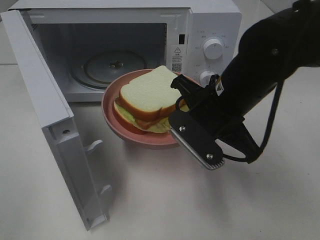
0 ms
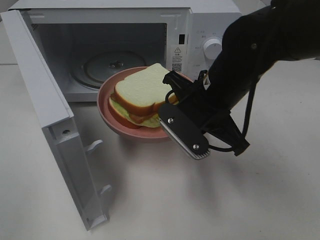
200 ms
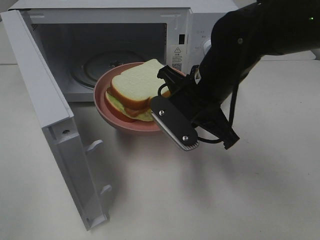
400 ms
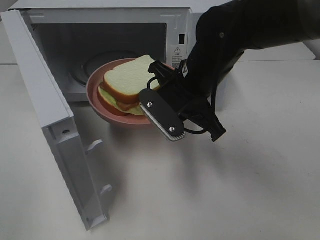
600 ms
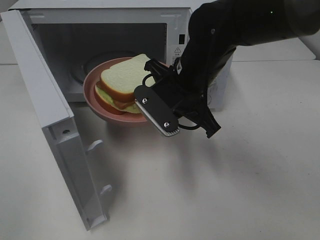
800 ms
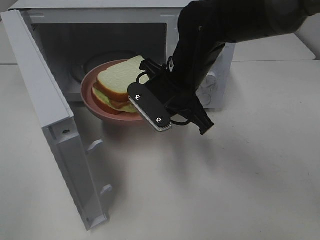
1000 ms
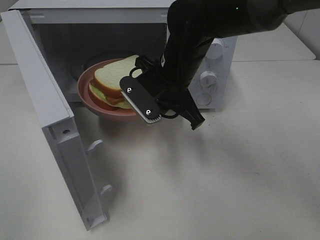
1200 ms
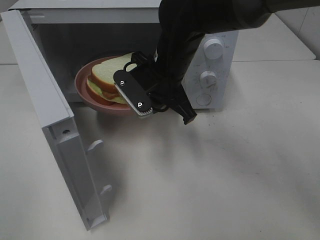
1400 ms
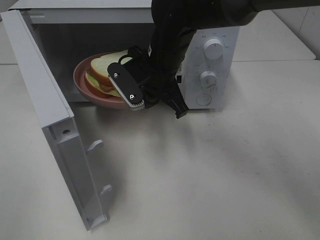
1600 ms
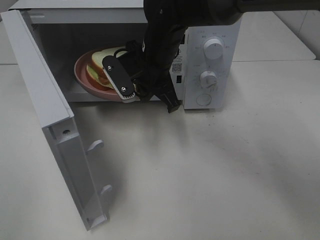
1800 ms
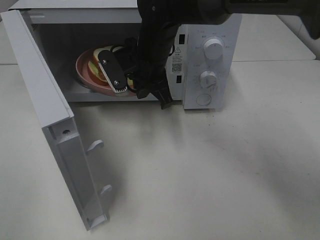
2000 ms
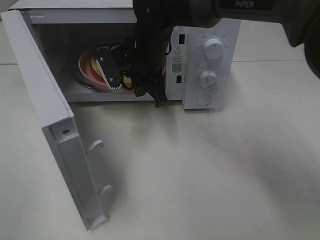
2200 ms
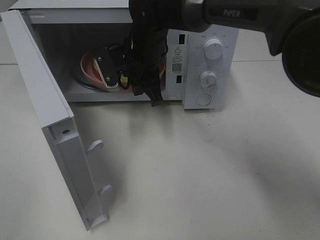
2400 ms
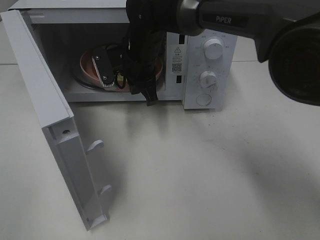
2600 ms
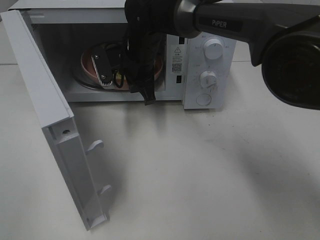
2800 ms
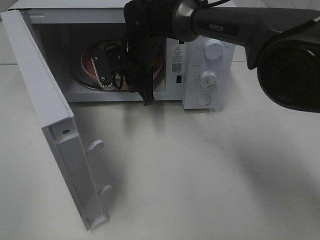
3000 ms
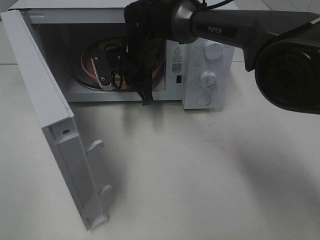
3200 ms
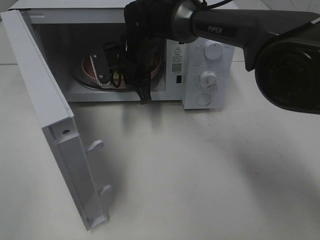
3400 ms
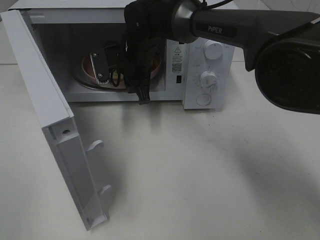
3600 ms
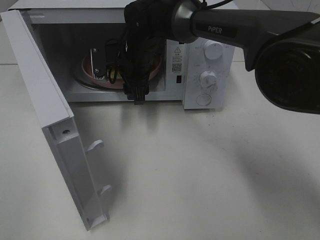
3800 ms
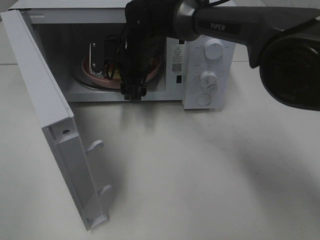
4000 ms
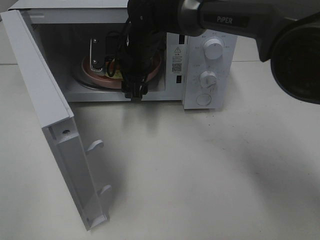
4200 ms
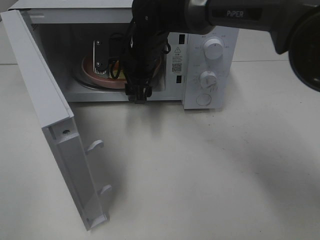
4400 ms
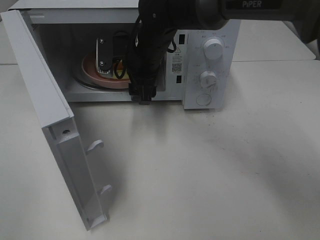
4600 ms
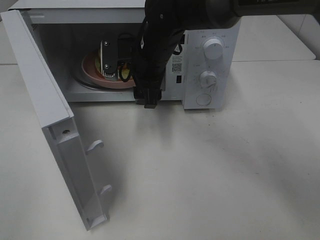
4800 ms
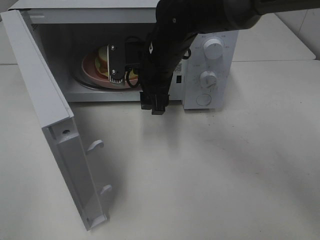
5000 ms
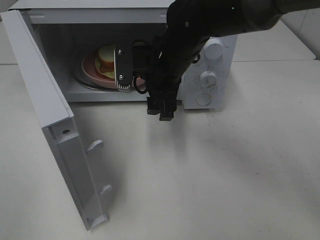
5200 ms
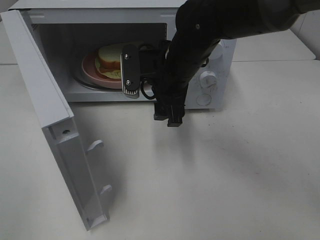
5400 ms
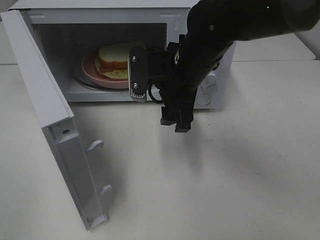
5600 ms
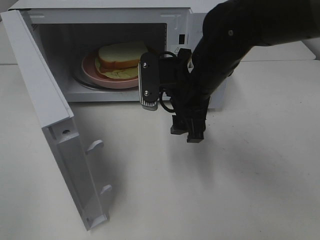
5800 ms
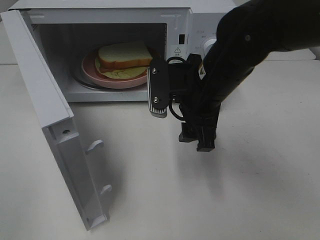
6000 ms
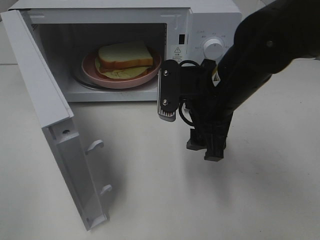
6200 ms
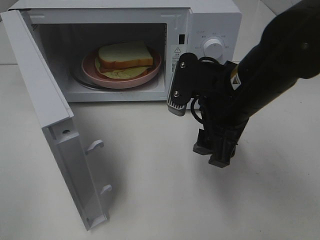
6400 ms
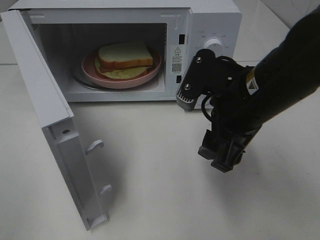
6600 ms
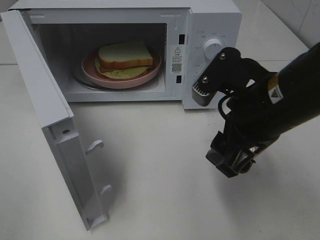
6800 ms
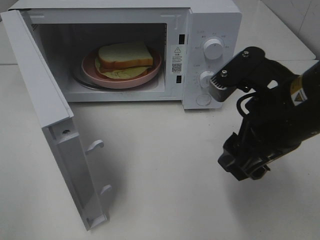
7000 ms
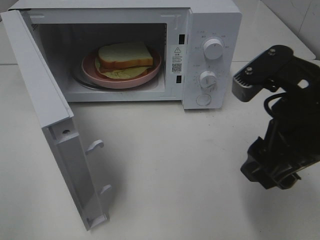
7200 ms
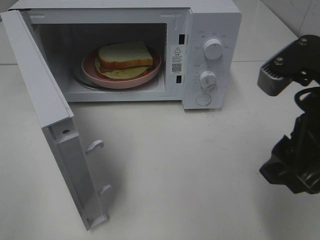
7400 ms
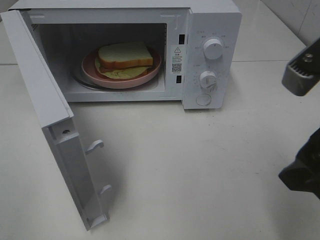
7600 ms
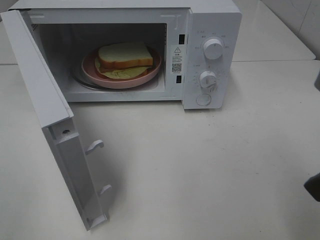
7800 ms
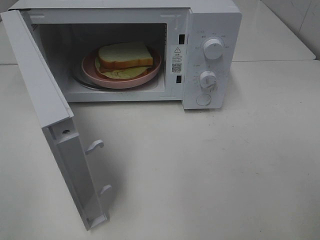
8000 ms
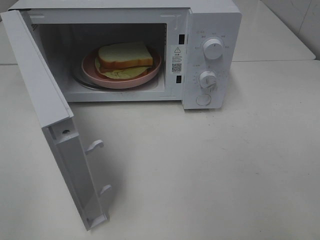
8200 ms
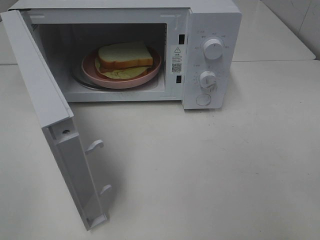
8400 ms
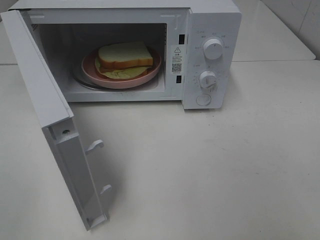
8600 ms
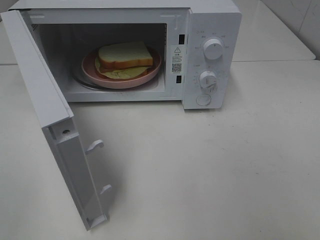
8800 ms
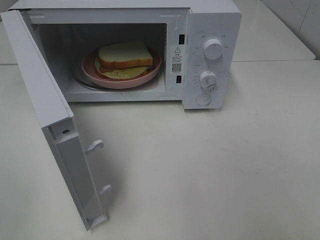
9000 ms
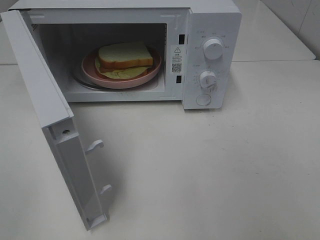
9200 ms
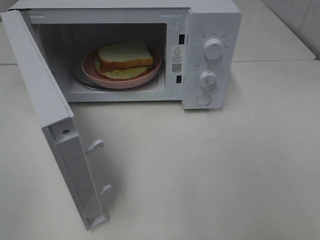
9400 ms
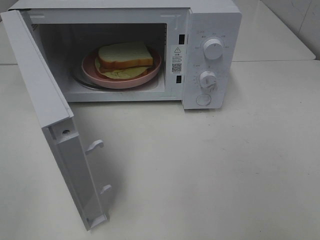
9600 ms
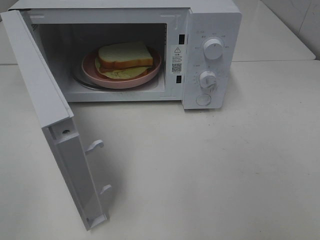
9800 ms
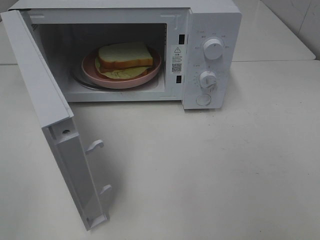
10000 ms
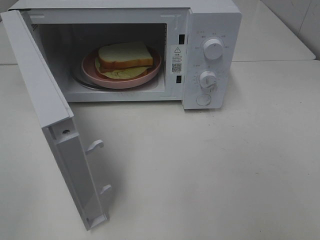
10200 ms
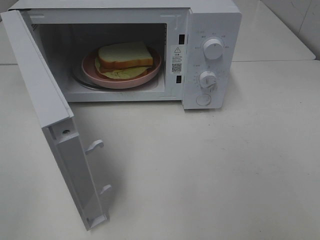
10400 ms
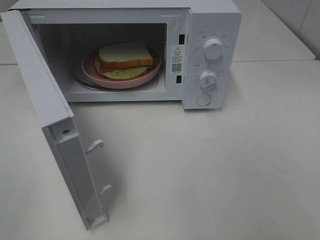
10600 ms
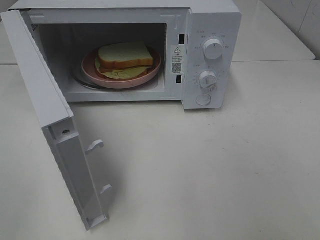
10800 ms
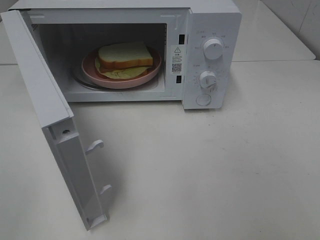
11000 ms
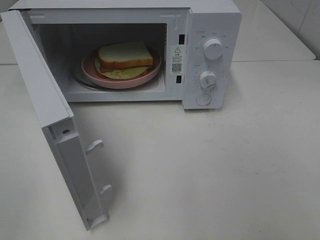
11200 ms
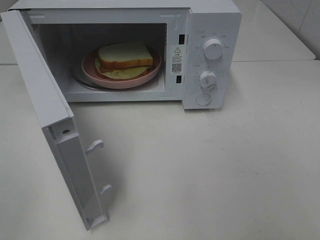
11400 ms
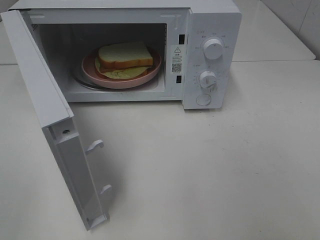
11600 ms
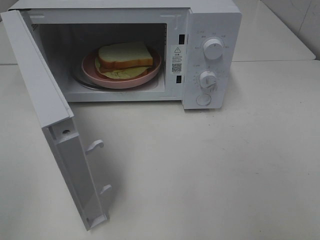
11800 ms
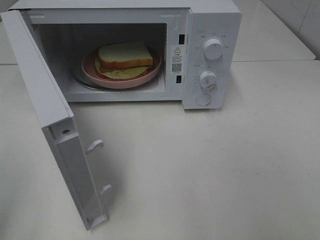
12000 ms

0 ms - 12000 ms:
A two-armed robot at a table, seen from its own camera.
Task of the whole recording: Heat Sandwich.
Step, 0 ms - 4200 ms: Right hand: place the plate in the microwave.
0 ms - 1600 ms: The right gripper moves forward and to the left, about 15 cm.
1600 ms - 3000 ms: The right gripper travels forward by some 5 cm.
3000 ms - 4400 ms: The right gripper opens up.
4400 ms - 6000 ms: The right gripper travels backward and to the right by some 15 cm.
6000 ms - 7600 ms: The right gripper moves backward, to the right and upward, about 20 cm.
7600 ms - 9000 ms: The right gripper moves backward and to the right, about 15 cm.

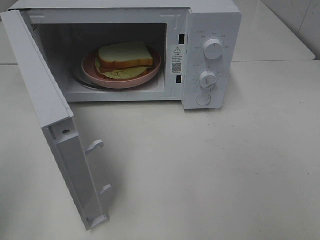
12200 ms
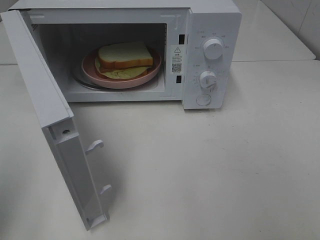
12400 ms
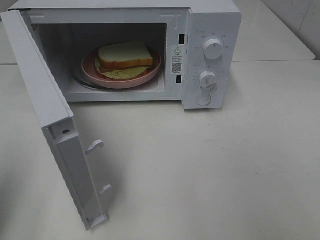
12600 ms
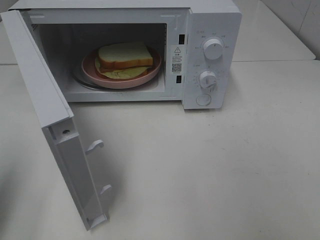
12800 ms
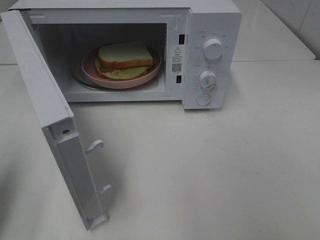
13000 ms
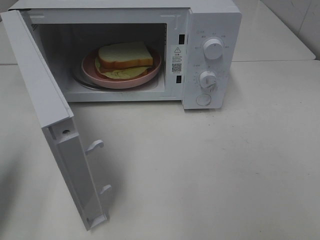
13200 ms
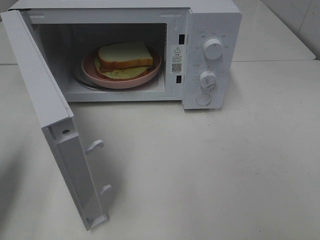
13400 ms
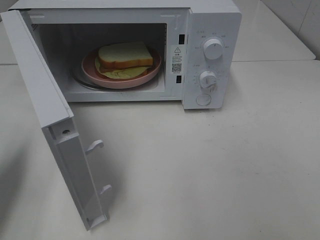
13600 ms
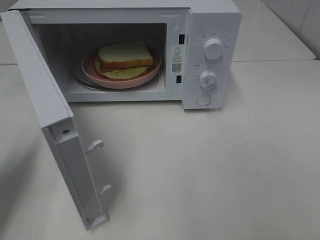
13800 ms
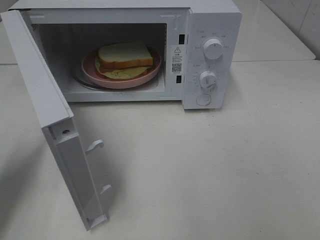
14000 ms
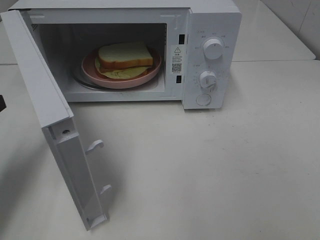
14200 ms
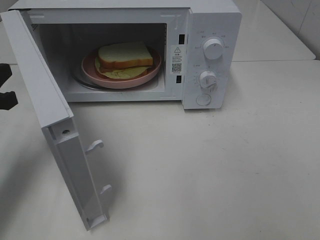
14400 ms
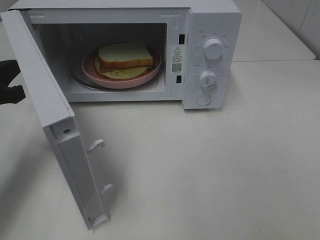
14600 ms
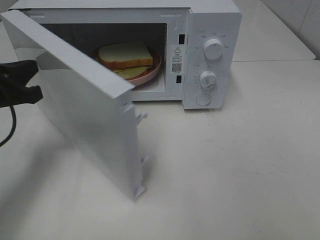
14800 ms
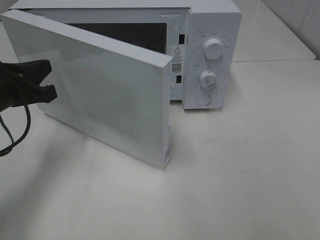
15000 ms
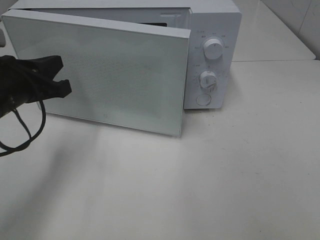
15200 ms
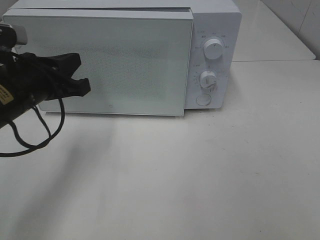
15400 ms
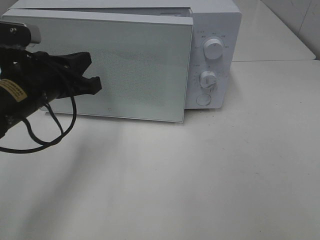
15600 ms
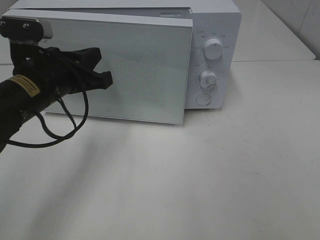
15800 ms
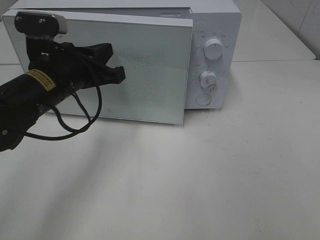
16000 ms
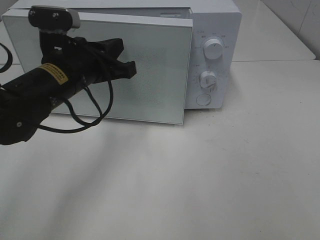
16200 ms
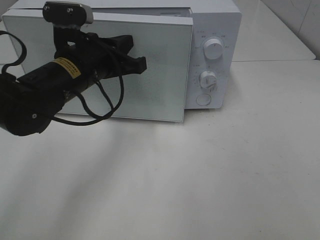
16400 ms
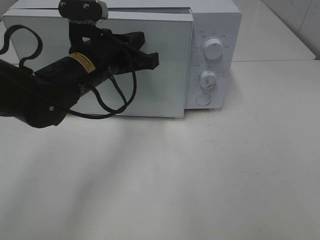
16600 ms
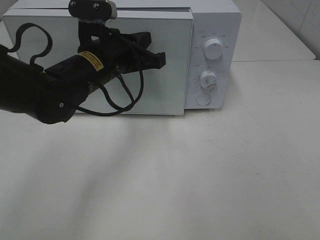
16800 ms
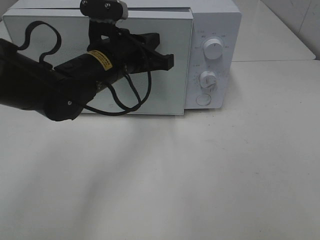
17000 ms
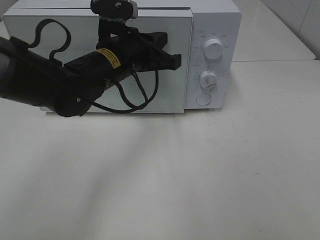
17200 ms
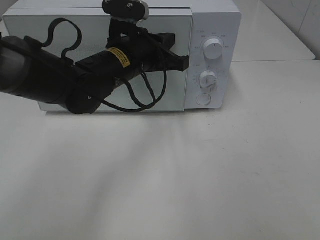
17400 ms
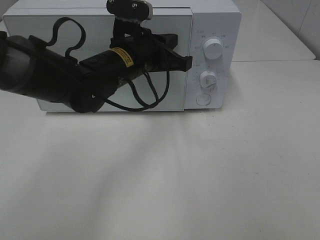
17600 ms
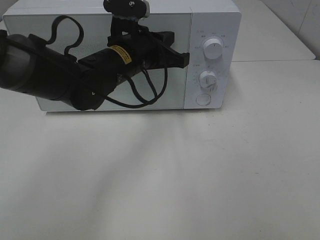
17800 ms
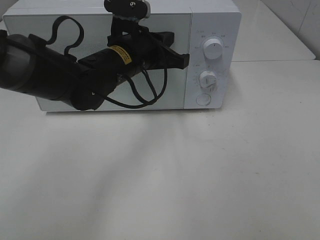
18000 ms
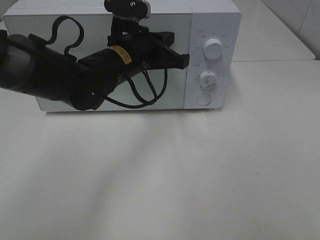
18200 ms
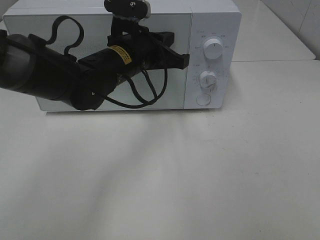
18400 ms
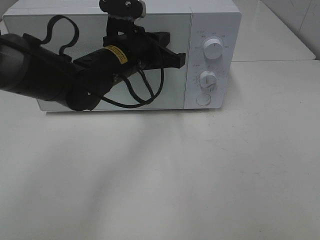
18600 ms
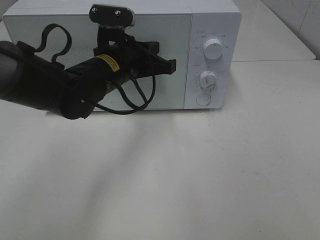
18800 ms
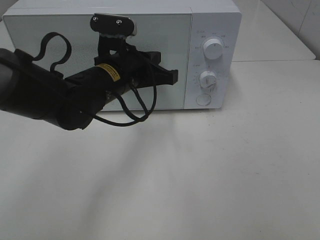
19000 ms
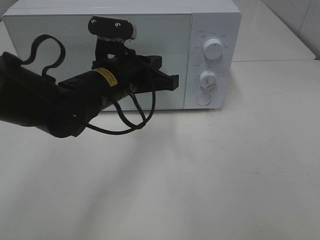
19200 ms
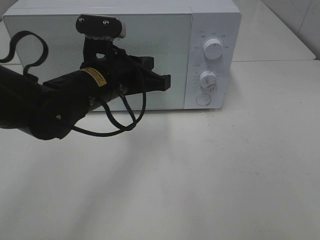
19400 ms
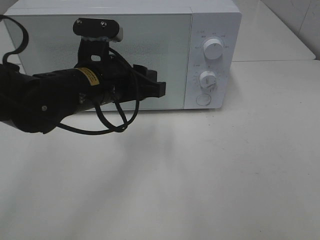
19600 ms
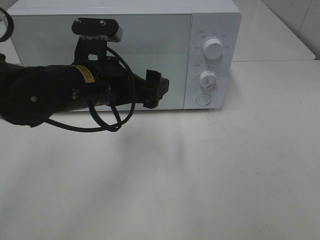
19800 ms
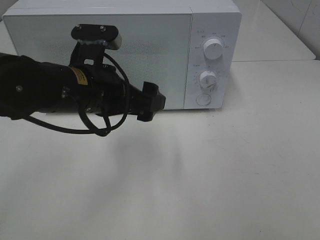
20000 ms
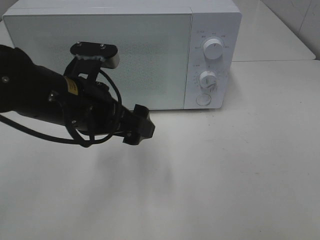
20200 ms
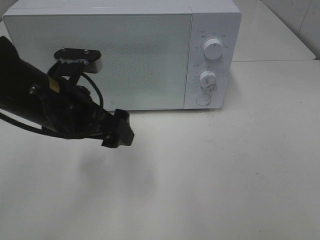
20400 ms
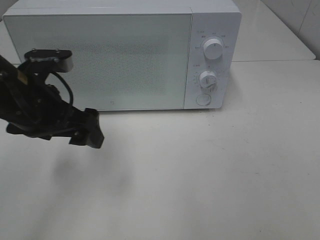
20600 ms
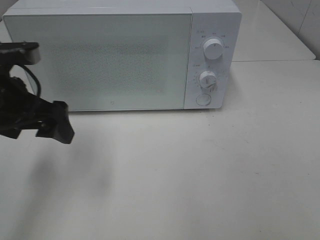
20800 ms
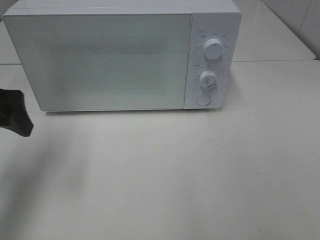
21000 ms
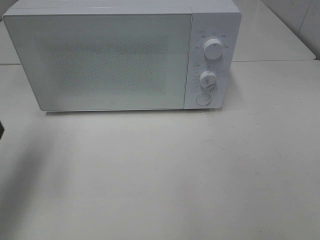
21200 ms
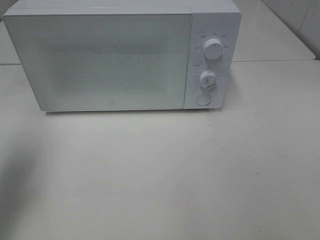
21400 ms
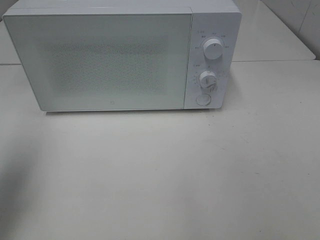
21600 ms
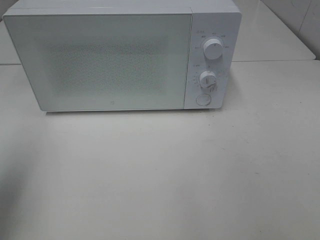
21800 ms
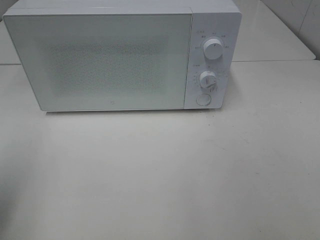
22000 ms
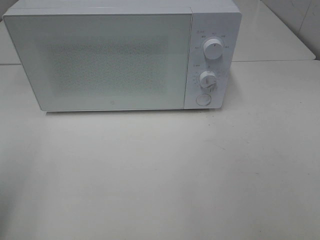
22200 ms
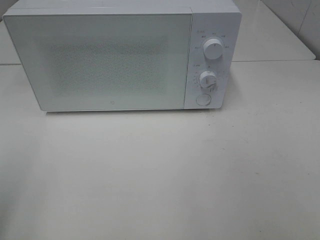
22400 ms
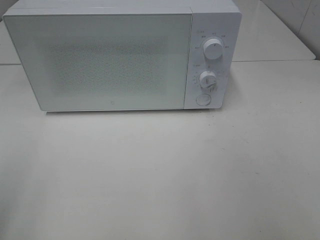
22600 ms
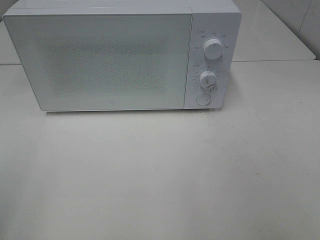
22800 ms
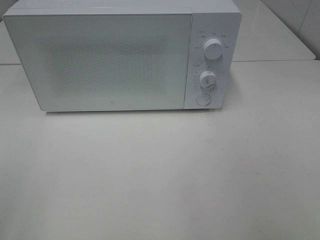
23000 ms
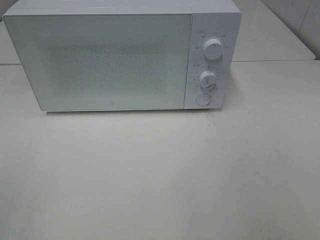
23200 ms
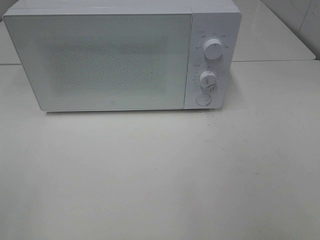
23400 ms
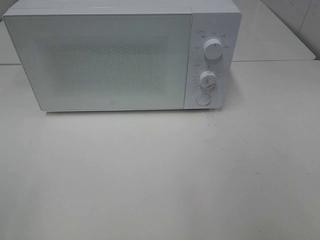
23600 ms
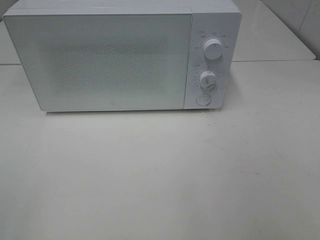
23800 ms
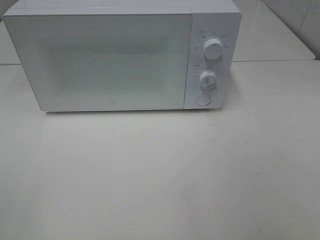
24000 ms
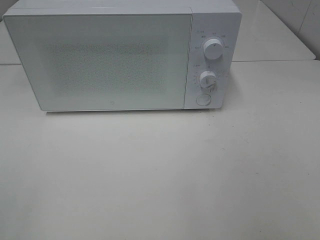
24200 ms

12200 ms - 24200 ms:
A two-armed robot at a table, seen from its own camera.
Task of the whole recording: Heat Sandwich.
Step, 12200 ms - 19600 ms: Left hand: close the microwave door.
12200 ms - 13800 ms: The left gripper travels forward and downward by some 20 cm.
13800 ms - 15200 ms: The left gripper moves to the right and forward, some 10 cm.
15200 ms - 16600 ms: The left gripper moves to the right and forward, roughly 15 cm.
16600 ms - 18200 ms: The left gripper changes place by about 5 cm.
18200 ms - 19800 ms: The left gripper moves backward, approximately 10 cm, and opens.
19800 ms - 21200 ms: The left gripper is displaced to the left by approximately 20 cm.
21200 ms - 22600 ms: The left gripper goes some 15 cm backward.
